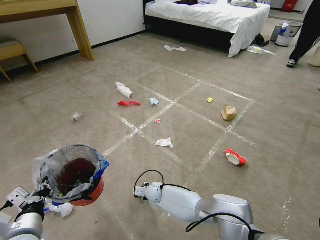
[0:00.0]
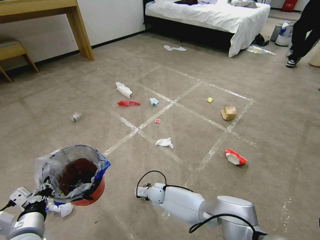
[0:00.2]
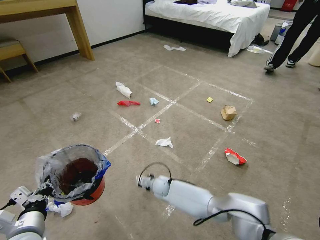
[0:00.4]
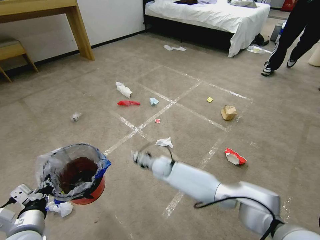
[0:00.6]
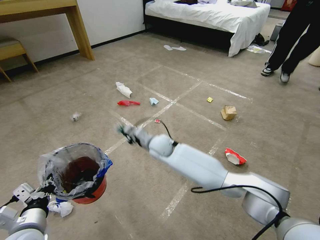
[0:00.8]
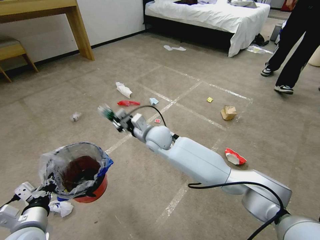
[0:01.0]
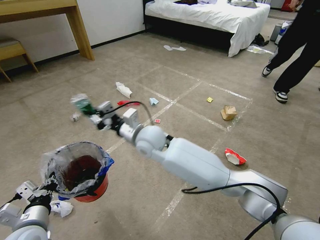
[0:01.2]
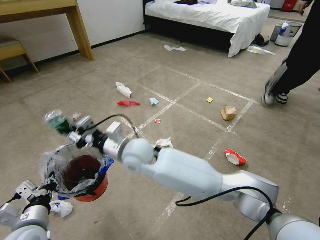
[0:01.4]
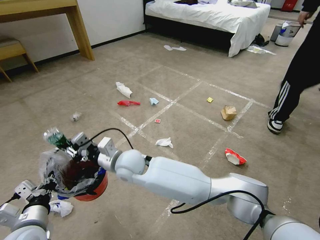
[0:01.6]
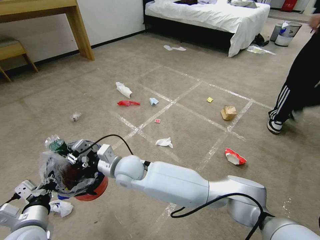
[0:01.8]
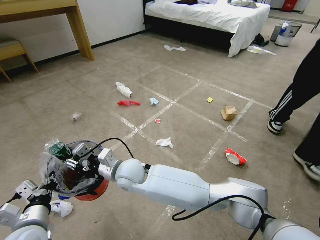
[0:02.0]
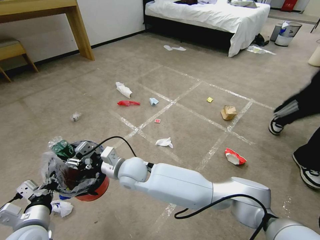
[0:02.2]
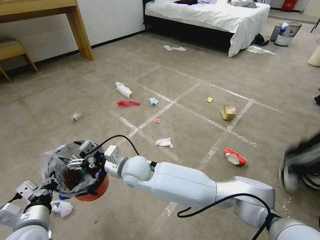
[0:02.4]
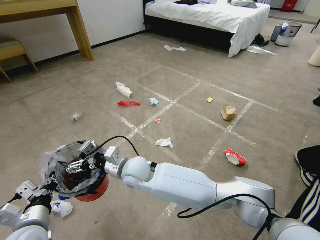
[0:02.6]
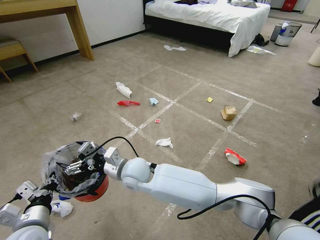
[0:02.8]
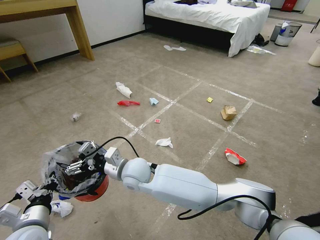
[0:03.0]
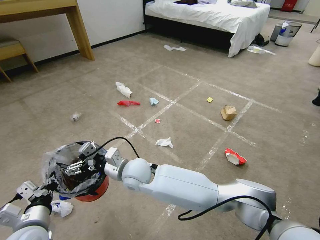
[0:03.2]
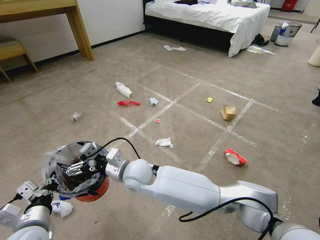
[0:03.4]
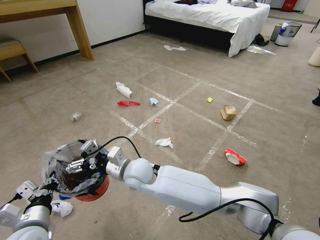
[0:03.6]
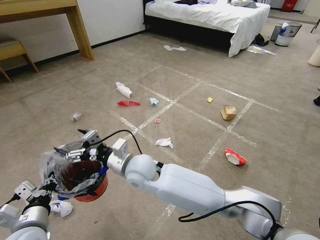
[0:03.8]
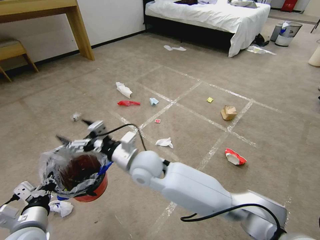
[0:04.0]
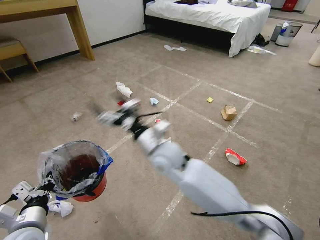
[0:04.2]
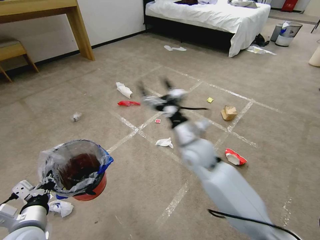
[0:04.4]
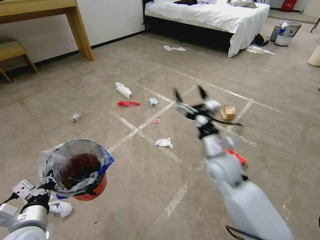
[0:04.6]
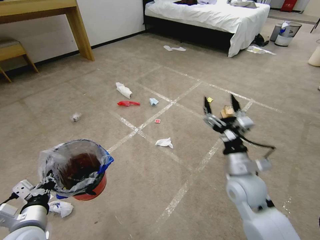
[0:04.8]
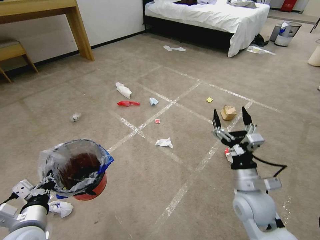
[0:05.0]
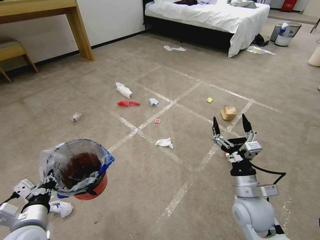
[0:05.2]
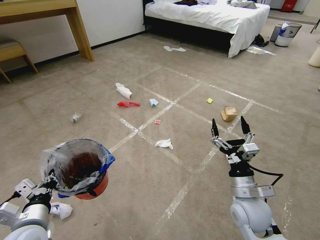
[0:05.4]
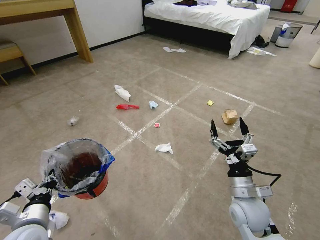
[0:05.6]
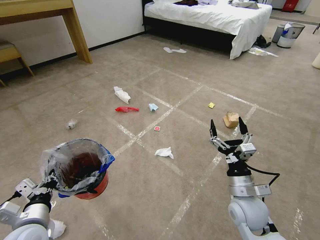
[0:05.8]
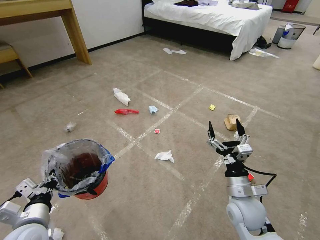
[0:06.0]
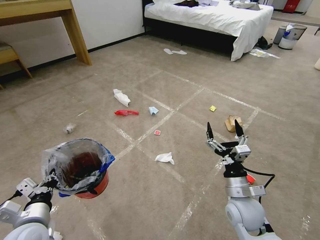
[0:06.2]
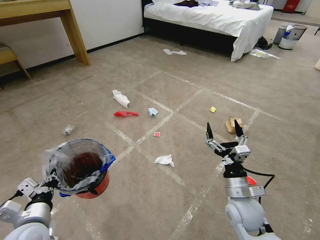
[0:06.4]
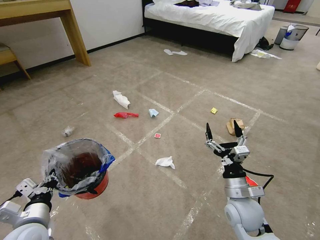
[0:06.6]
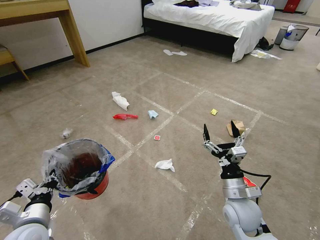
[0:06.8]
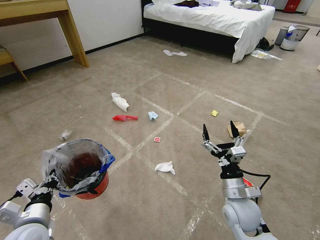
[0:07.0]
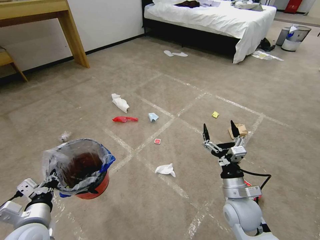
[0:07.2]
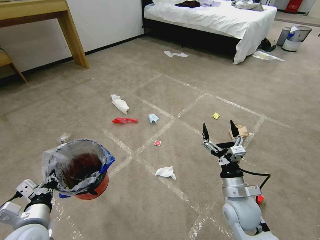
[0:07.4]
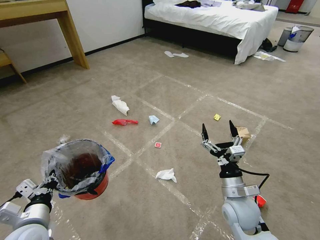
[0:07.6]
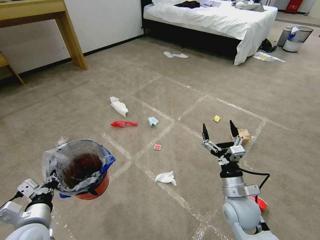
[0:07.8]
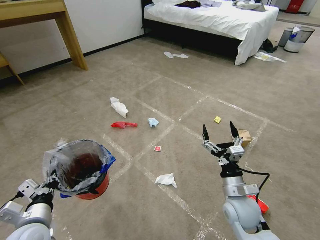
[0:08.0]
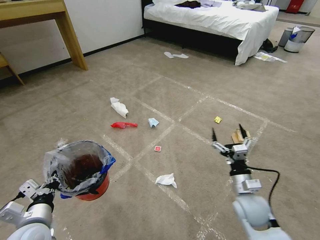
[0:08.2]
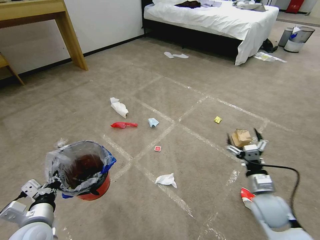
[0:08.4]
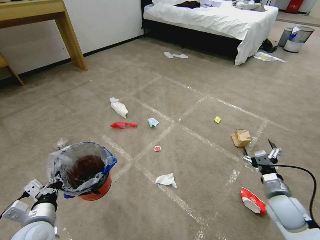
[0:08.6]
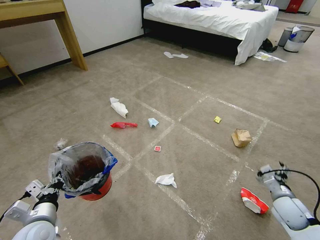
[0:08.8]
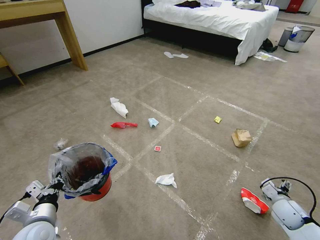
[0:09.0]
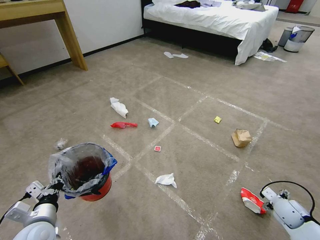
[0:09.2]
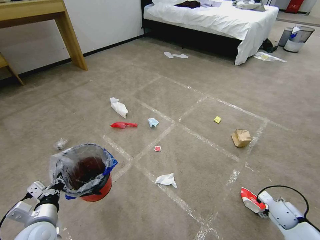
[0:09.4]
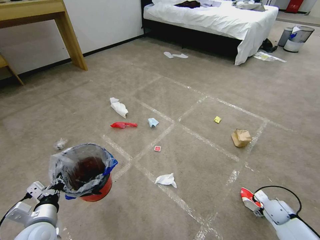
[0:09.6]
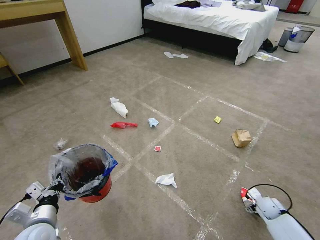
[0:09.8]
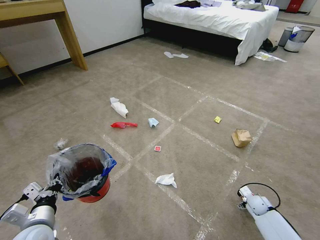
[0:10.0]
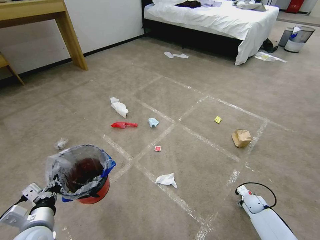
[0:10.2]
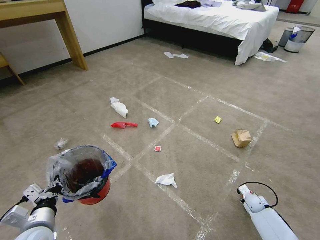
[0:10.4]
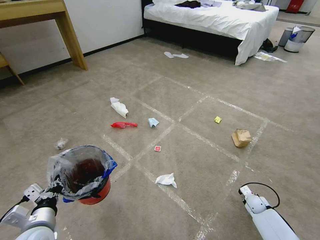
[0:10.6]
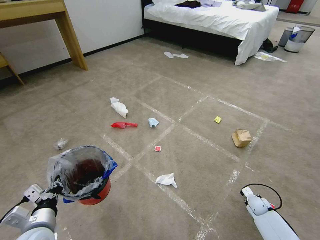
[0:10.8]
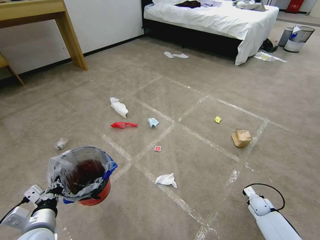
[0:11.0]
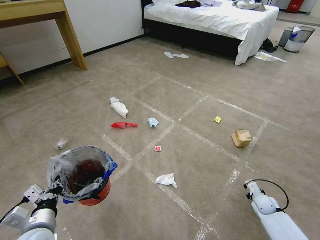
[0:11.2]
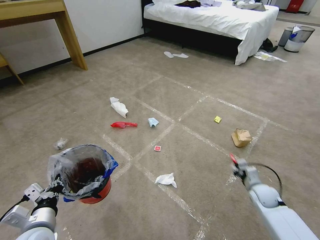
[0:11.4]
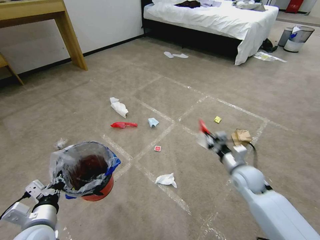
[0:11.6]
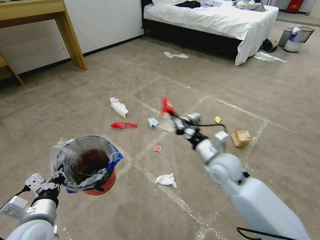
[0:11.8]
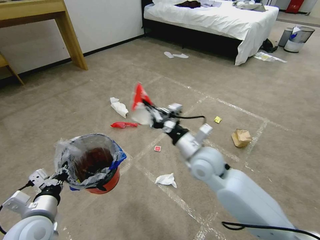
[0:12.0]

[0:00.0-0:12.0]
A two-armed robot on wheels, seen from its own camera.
Task of the whole recording: Pick up the trash bin and place the garbage on the floor into it.
0:00.0 to 0:01.6: The right gripper goes roughly 30 cm upward.
0:01.6 to 0:03.0: The right gripper opens its fingers.
0:03.0 to 0:04.4: The right gripper is displaced to the right by roughly 20 cm.
0:04.4 to 0:06.0: The right gripper moves backward, to the right and downward, about 20 cm.
0:06.0 to 0:07.6: The grippers stay close to where they were, moving slightly.
0:07.6 to 0:09.0: The right gripper travels to the right and downward by some 25 cm.
0:09.0 to 0:10.4: The right gripper travels downward and forward by about 15 cm, and closes up.
0:10.4 to 0:12.0: The right gripper shifts approximately 50 cm upward and to the left, and closes.

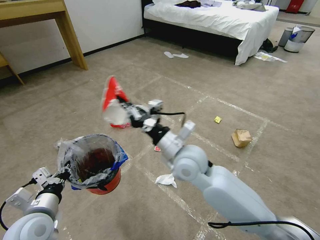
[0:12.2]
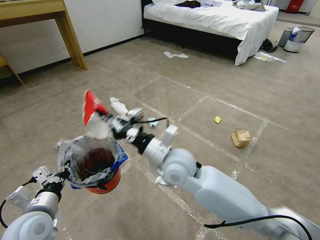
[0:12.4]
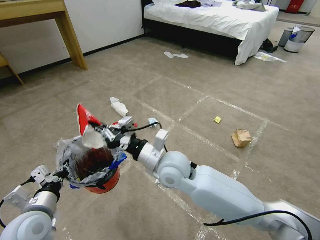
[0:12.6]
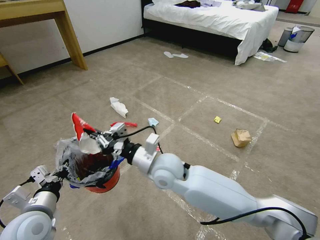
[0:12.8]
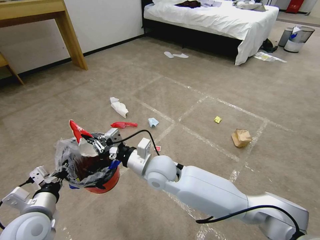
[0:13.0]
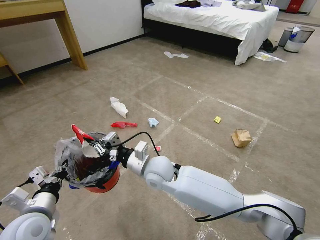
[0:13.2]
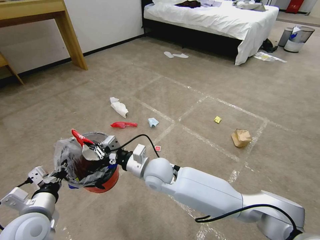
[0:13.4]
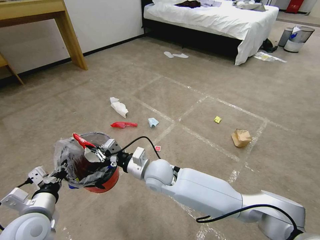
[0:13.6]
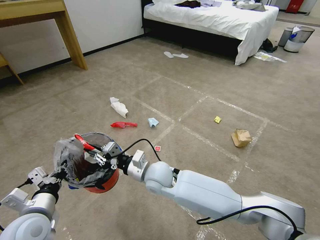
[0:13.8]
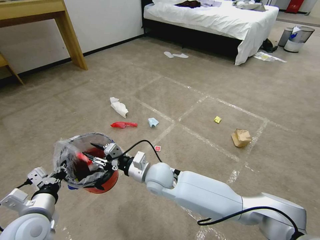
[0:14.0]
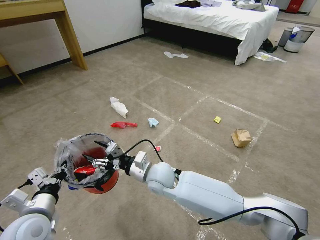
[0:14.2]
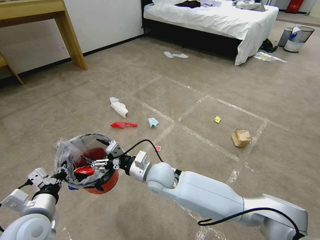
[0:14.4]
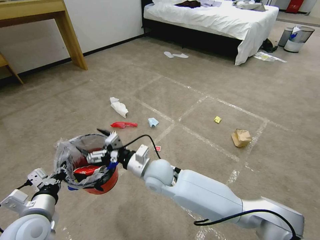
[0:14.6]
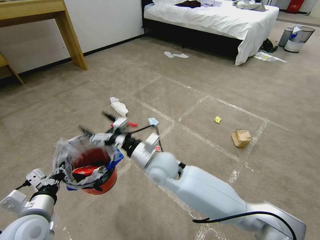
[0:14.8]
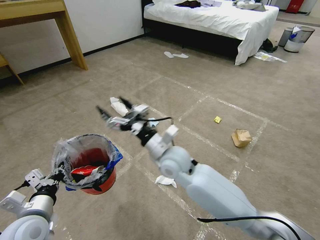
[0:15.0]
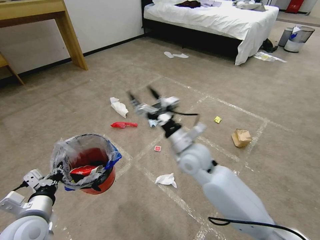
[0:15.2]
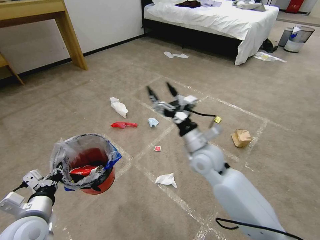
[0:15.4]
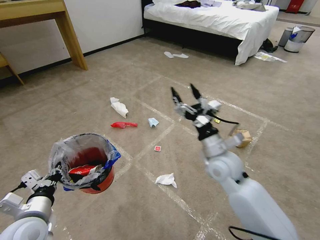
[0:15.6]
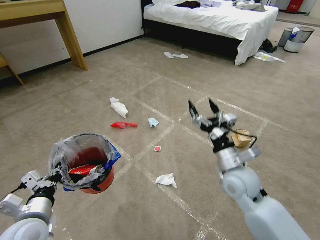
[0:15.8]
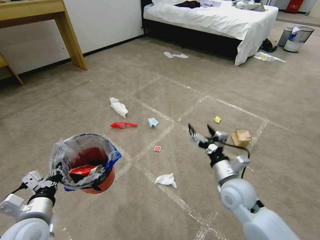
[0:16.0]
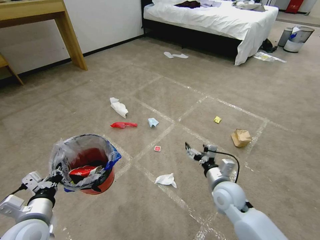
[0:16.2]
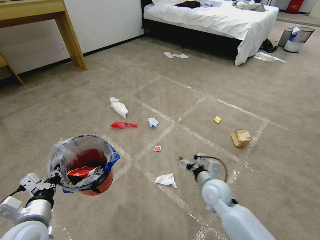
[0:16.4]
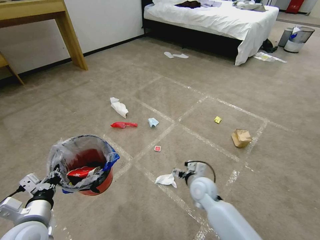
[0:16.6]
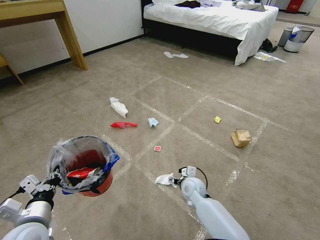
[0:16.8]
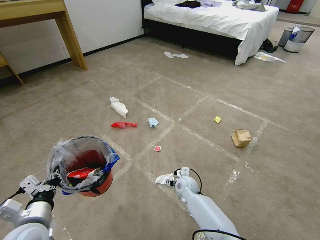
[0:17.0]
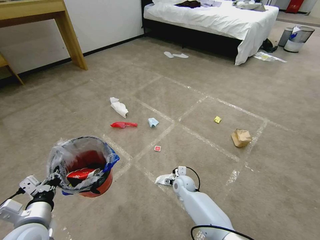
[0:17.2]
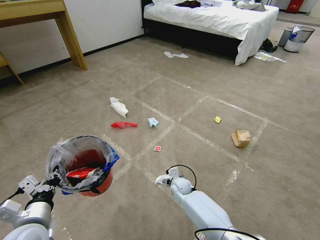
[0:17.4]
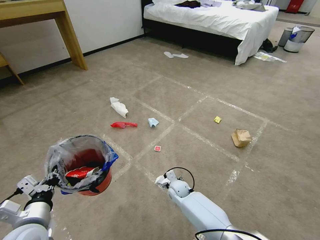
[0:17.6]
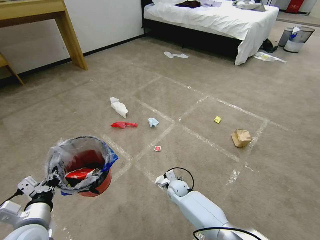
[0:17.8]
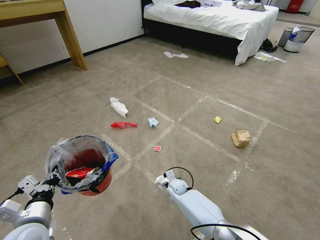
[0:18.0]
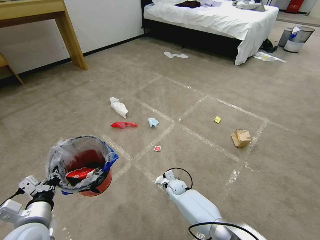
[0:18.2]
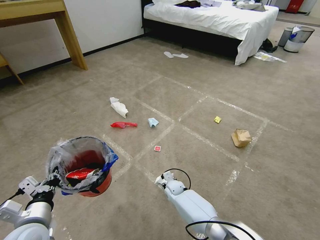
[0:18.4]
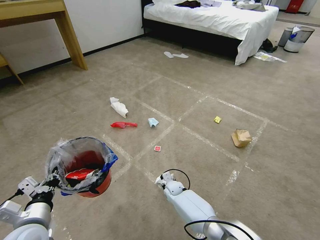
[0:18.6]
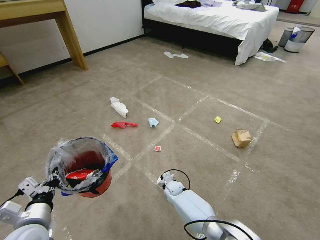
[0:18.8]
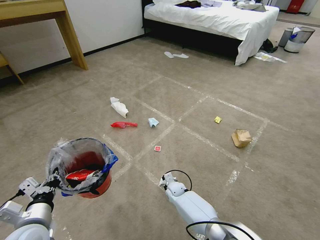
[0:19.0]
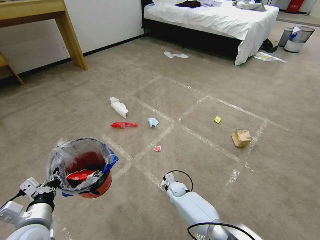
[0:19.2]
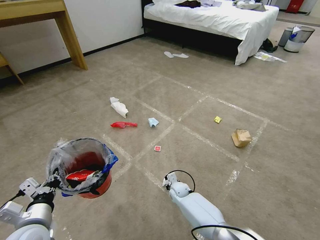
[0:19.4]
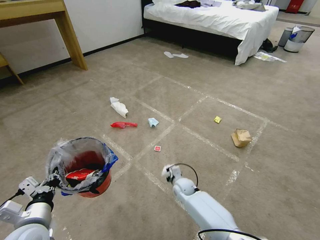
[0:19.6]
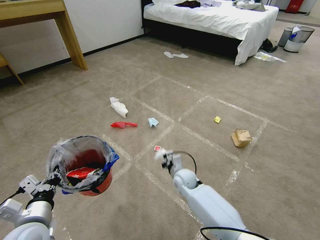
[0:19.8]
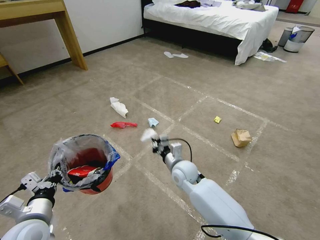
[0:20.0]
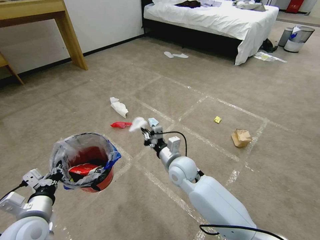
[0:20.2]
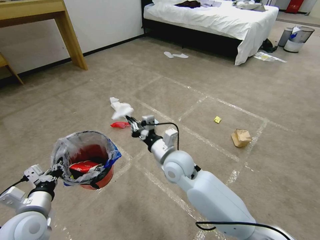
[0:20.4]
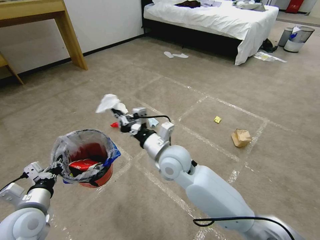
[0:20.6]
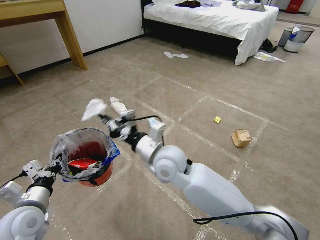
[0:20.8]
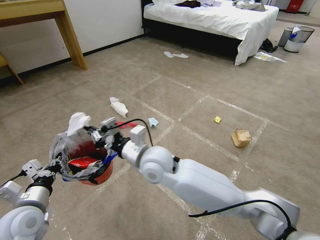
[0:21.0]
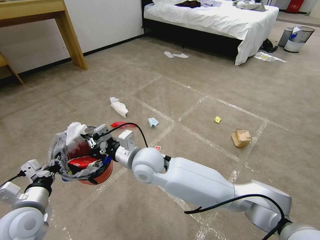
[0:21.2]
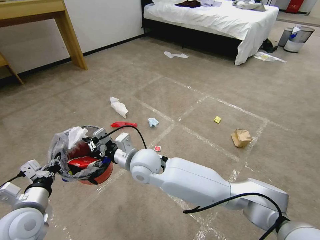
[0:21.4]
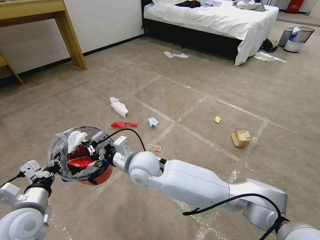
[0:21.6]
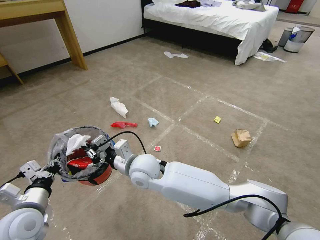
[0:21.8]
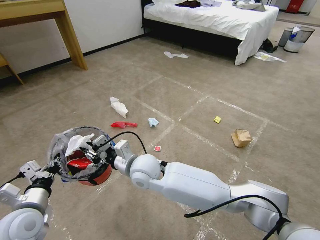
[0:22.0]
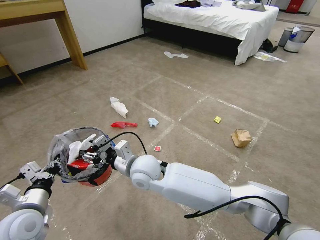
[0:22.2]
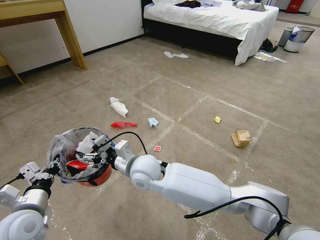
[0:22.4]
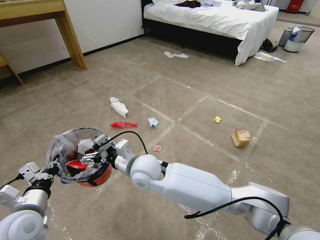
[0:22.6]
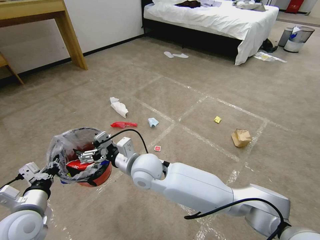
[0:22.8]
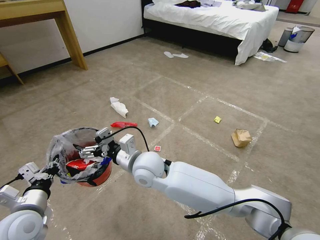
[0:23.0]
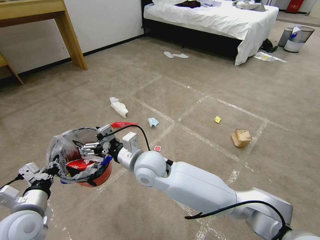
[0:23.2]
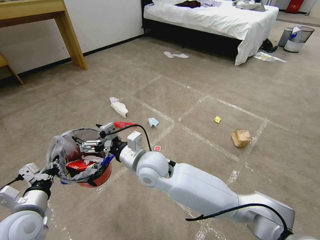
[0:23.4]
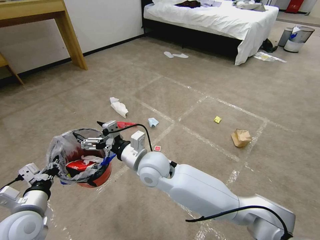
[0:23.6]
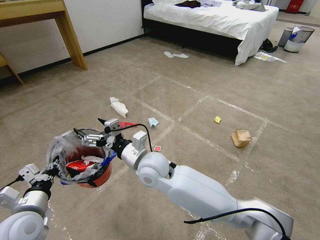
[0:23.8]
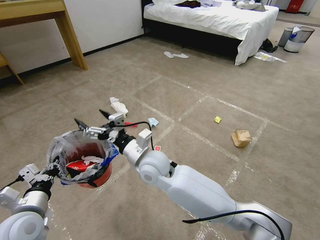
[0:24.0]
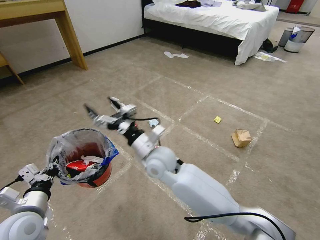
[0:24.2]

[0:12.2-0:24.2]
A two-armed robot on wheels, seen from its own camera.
Task of the whole recording: Pick up the trash bin and place the garbage on the floor into it.
0:12.2 to 0:13.8: The right gripper travels downward and to the left by approximately 15 cm.
0:13.8 to 0:15.2: The right gripper moves to the right and upward, approximately 10 cm, and opens its fingers.
0:15.2 to 0:16.6: The right gripper goes some 15 cm downward.
0:16.6 to 0:18.2: The right gripper moves downward, to the left and forward, about 20 cm.
0:18.2 to 0:19.8: The right gripper travels upward by some 10 cm, and closes.
0:19.8 to 0:21.2: The right gripper moves upward and to the left, about 25 cm.
0:21.2 to 0:22.6: The right gripper opens.
0:22.6 to 0:24.2: The right gripper ends up roughly 5 cm from where it was.
